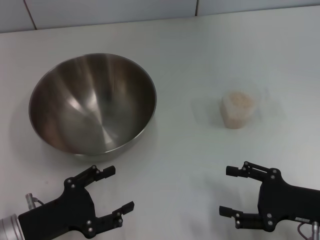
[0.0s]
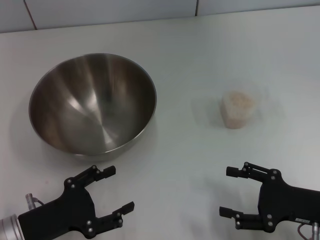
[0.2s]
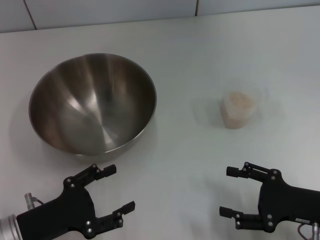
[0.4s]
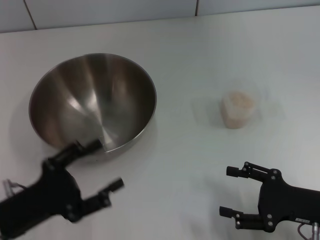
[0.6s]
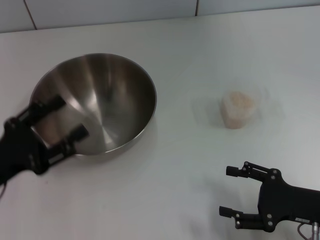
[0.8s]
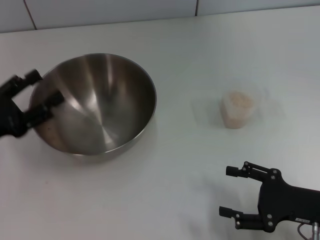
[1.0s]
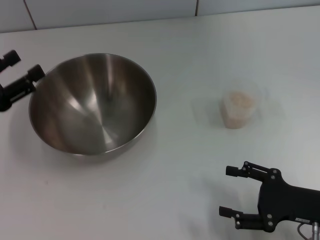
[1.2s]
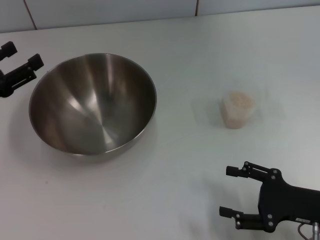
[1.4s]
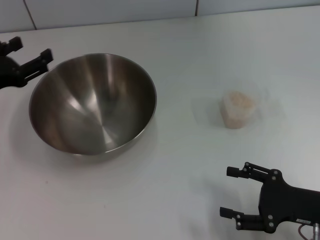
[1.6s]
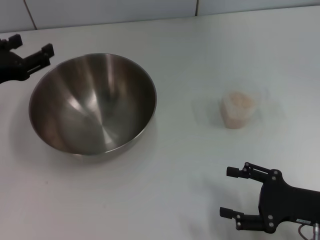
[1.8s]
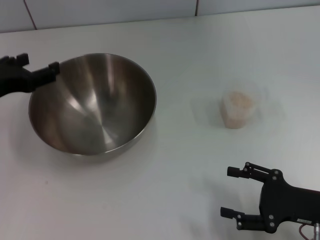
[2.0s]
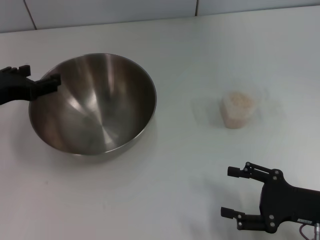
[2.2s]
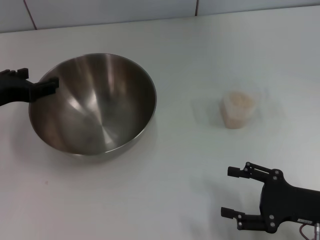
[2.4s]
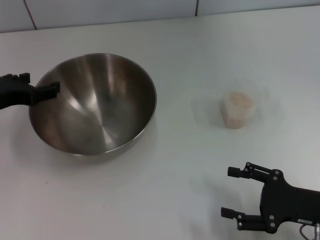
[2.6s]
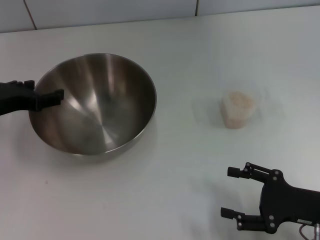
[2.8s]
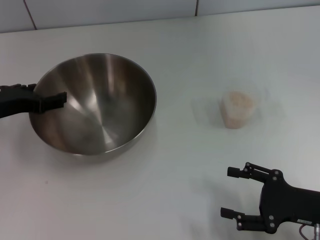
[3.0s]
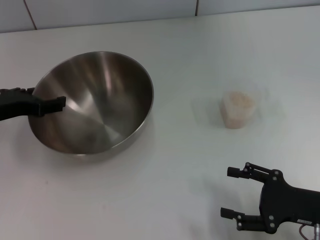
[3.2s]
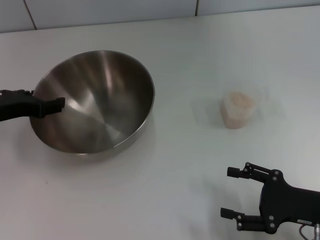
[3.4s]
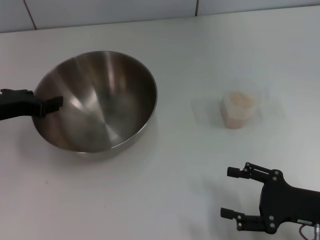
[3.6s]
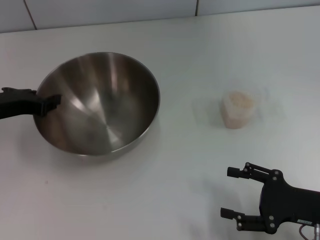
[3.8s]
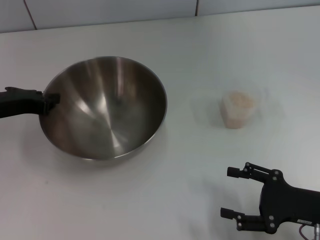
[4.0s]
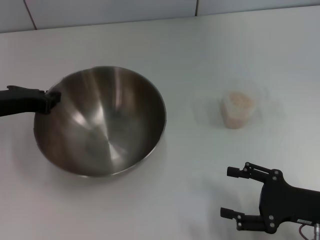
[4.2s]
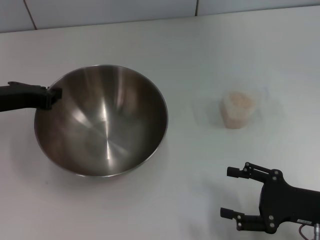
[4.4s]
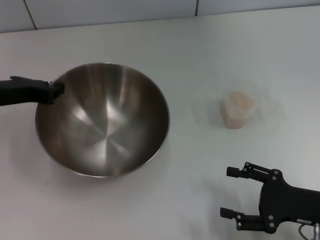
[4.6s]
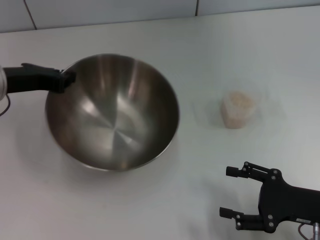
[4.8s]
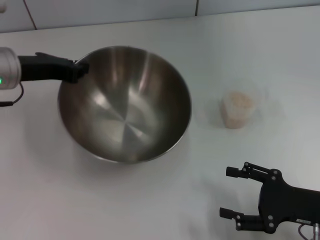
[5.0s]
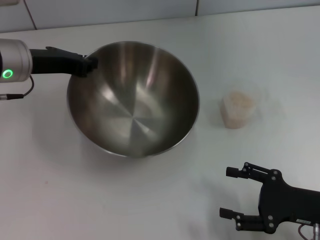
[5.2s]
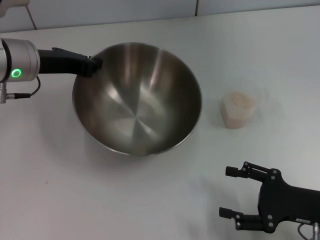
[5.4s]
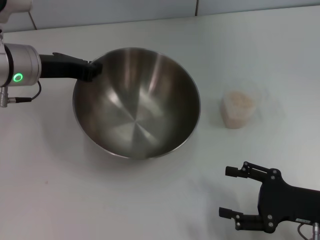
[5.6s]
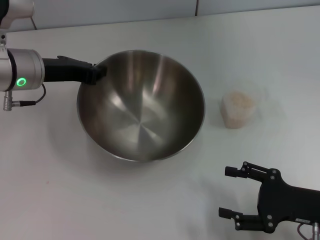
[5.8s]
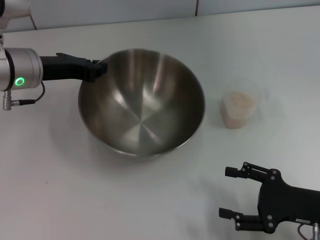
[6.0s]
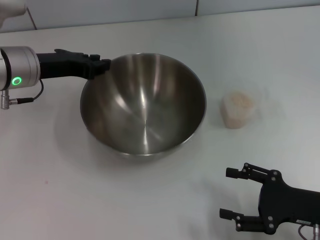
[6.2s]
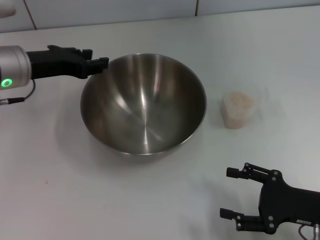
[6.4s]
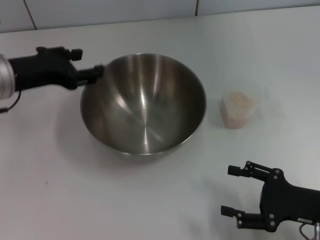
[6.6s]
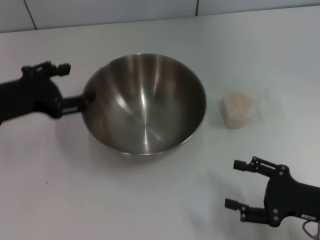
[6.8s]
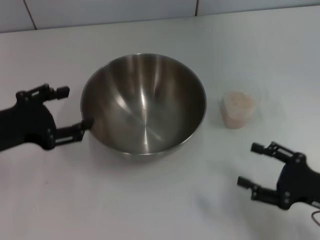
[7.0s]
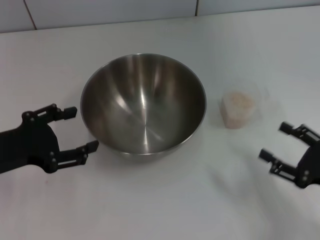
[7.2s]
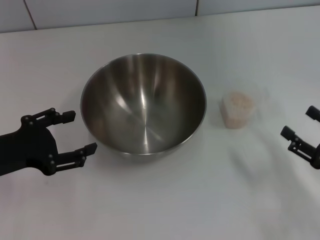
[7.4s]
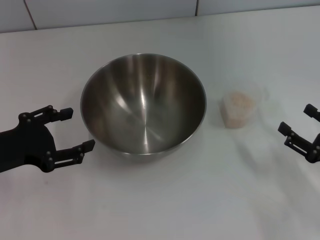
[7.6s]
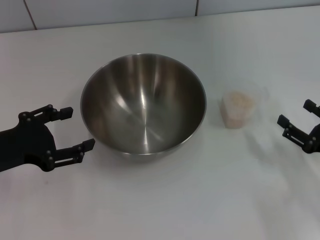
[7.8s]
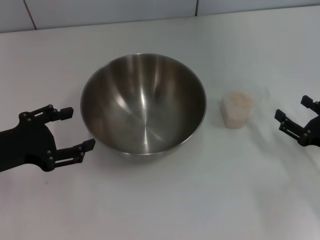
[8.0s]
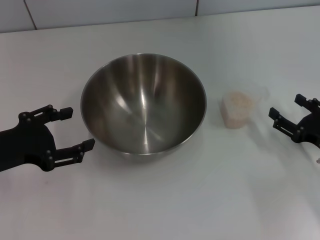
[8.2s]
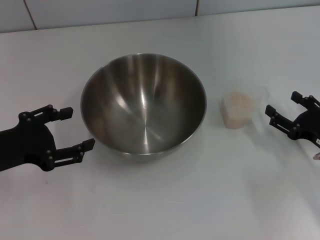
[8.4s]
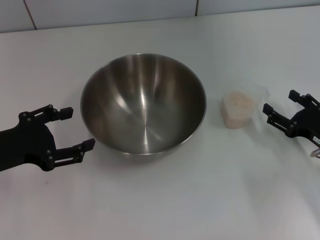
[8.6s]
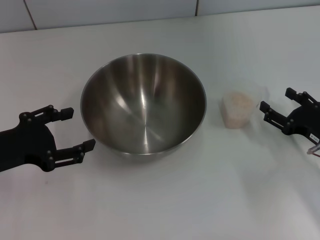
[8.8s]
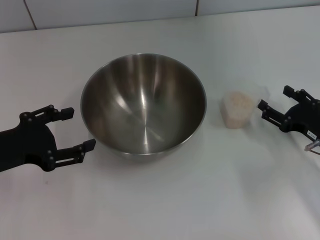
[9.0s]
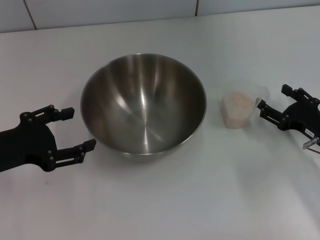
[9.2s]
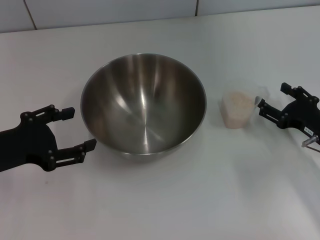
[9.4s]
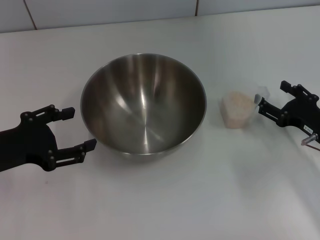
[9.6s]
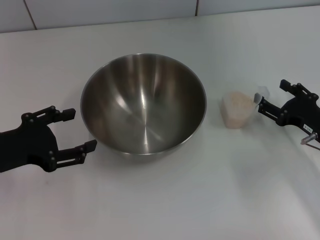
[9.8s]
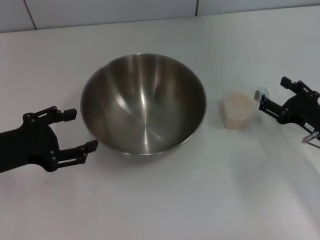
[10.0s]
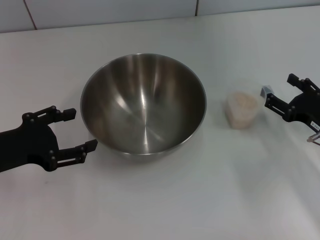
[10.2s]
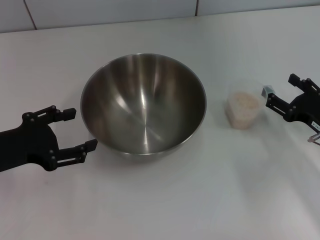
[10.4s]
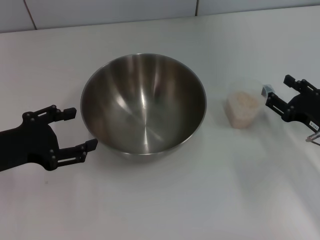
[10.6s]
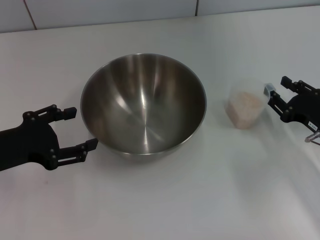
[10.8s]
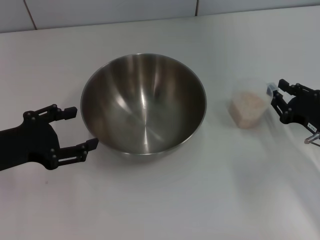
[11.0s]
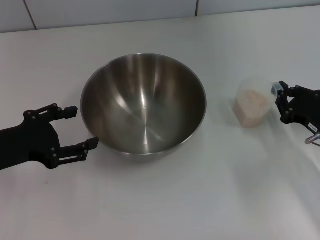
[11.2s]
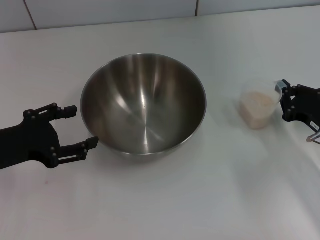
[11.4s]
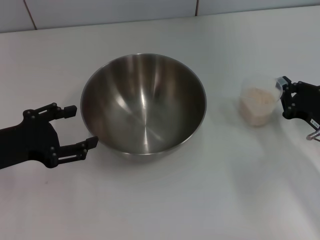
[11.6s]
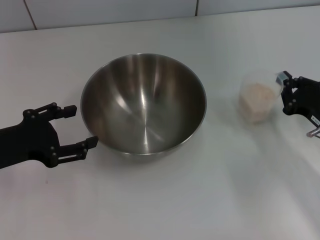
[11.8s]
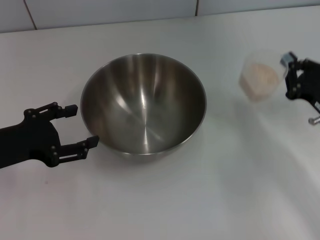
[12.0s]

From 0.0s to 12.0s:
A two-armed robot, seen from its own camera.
Task of the whole recording: Place the bowl in the middle of the table with one hand and pour the rice from the grain cup into it with the other hand.
Step, from 0.0s to 5.0s: Pick up the bowl with the left gripper.
Step, from 5.2s to 6.8s: Place the bowl in the center of view with the left gripper.
From 0.0s to 1.6s: The left gripper travels forward and upward by approximately 15 cm.
From 3.0s to 4.4s: The left gripper closes its fingers.
From 4.4s to 6.0s: The left gripper travels to the right by some 5 cm.
From 6.0s to 7.6s: The right gripper travels to the right by about 5 cm, while the left gripper heads backward and to the left, covering about 15 cm, and opens its fingers.
From 7.6s to 9.0s: The right gripper shifts some 5 cm forward.
From 9.0s to 10.4s: Both grippers stay about where they are.
From 10.4s to 12.0s: The right gripper closes.

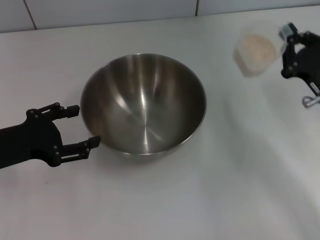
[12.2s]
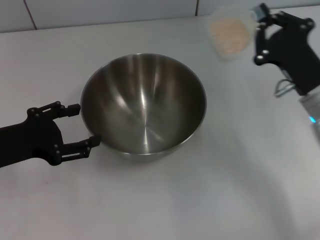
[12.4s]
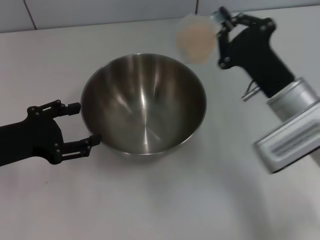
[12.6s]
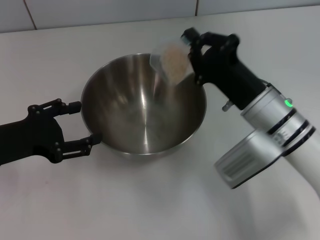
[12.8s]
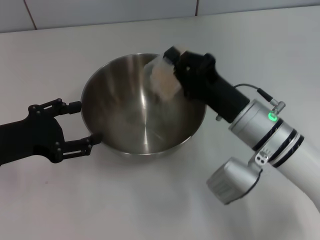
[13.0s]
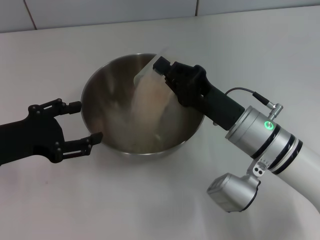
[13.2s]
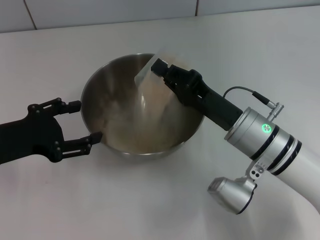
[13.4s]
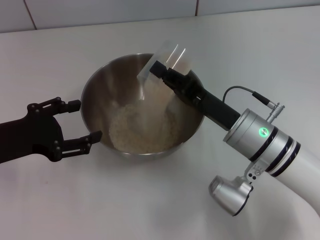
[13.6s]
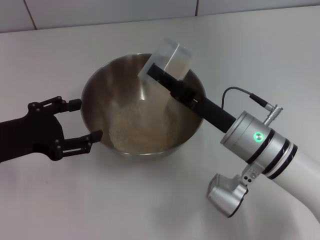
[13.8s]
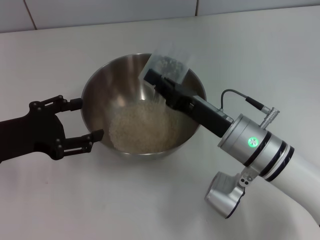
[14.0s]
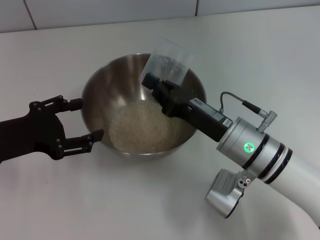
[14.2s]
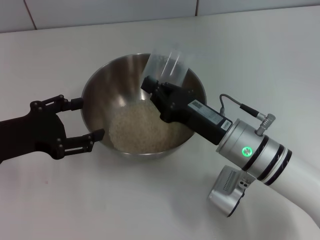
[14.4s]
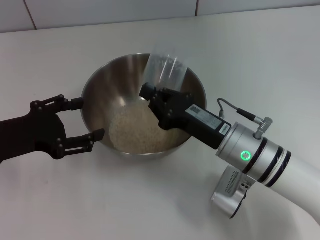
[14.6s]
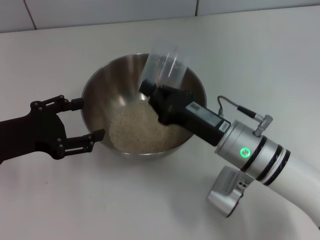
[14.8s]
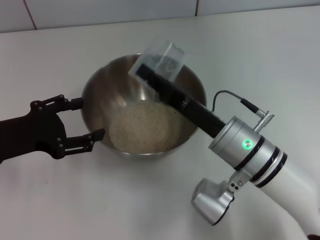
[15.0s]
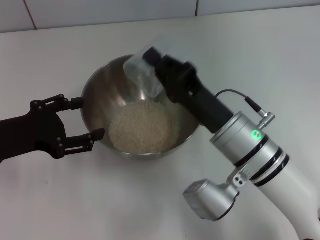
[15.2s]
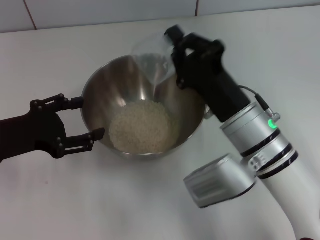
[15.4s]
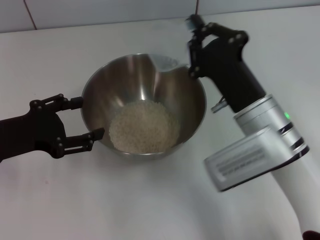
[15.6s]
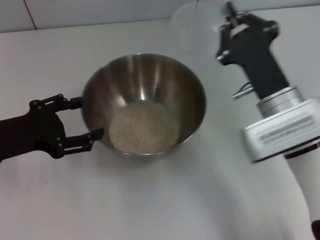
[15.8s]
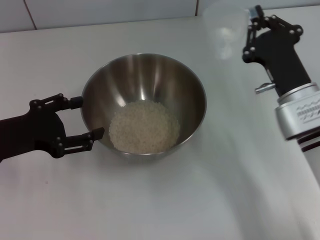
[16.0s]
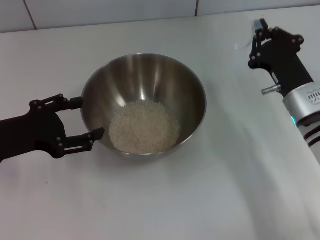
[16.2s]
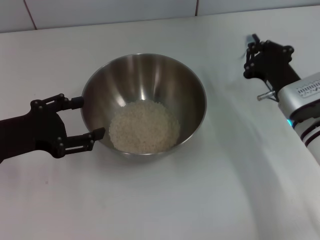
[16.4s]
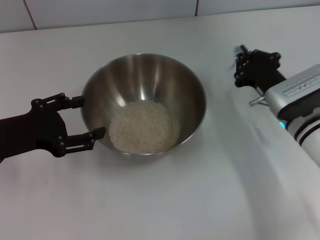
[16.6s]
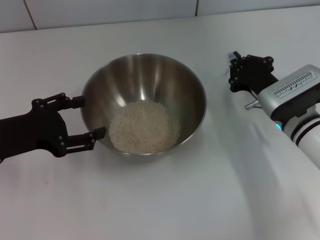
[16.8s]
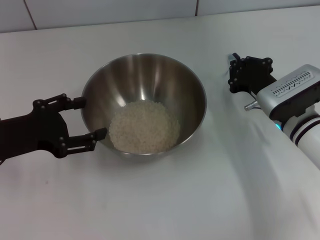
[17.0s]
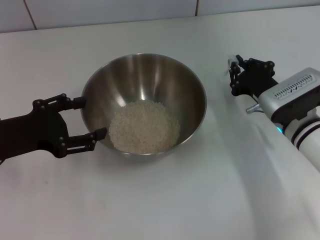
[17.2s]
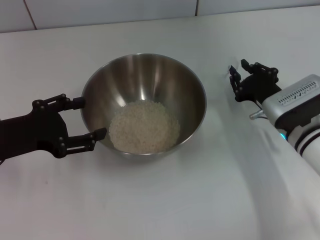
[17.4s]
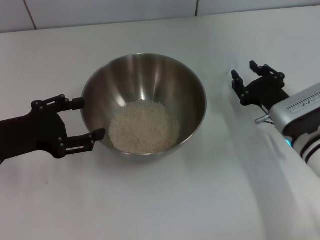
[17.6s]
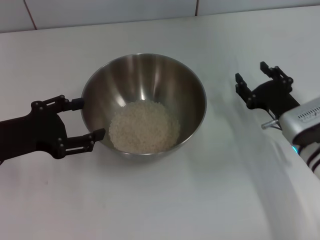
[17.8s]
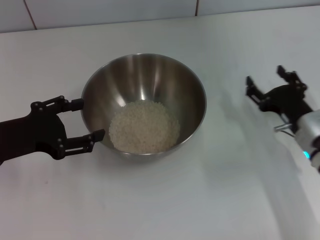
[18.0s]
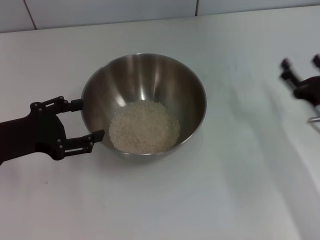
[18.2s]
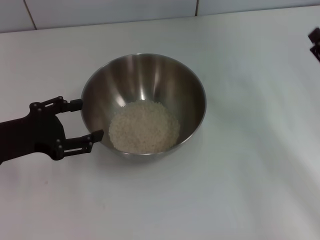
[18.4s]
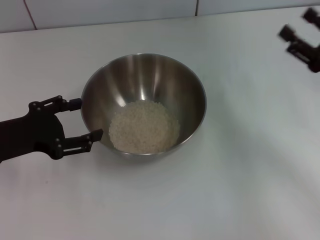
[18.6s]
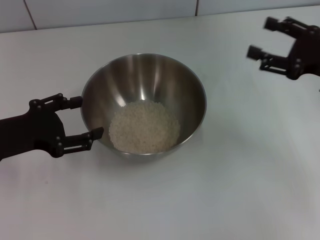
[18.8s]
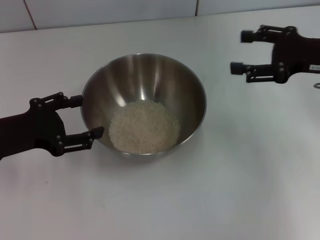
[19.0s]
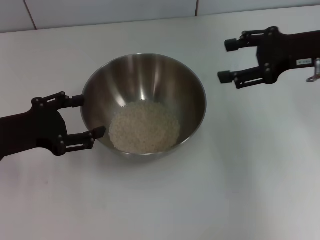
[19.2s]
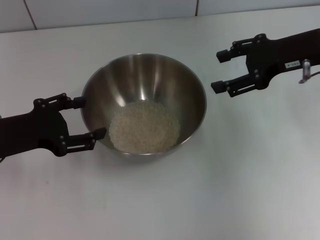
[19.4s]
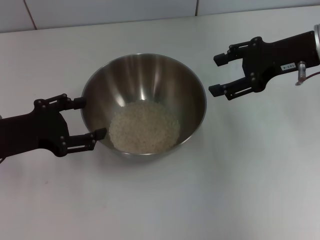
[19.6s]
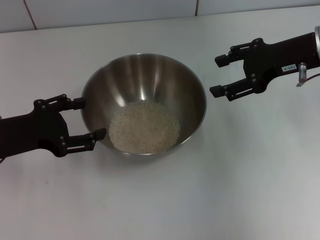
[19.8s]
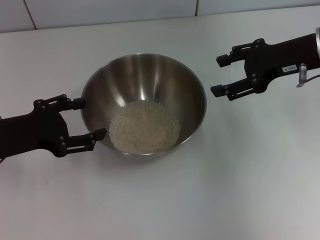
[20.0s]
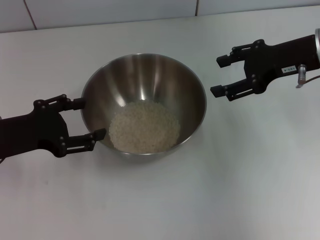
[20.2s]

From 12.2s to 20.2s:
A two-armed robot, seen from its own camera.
Task of the whole recording: Place the bowl in the middle of the table with one hand and pour the rice from the grain cup into it with the other hand.
Step, from 12.4s to 15.8s: Pour the rice from the cup into the bowl with the right gripper.
Step, from 16.0s to 17.8s: Place the cup on the table with the right gripper.
From 12.2s to 13.8s: The right gripper travels to the left by roughly 15 cm.
From 15.4s to 17.0s: The right gripper heads to the right, forward and downward, covering about 15 cm.
From 17.0s to 18.6s: The right gripper shifts about 15 cm to the right and upward, and opens its fingers.
From 18.6s to 20.2s: The right gripper shifts roughly 15 cm upward, forward and to the left.

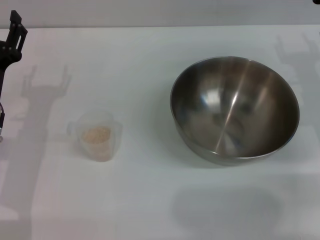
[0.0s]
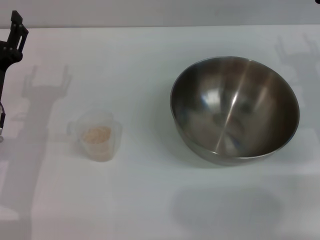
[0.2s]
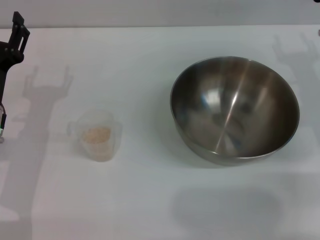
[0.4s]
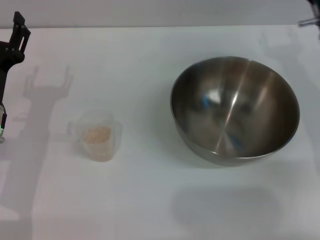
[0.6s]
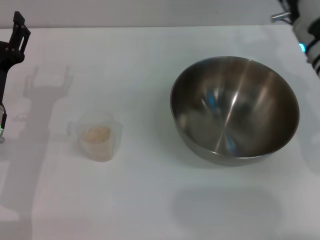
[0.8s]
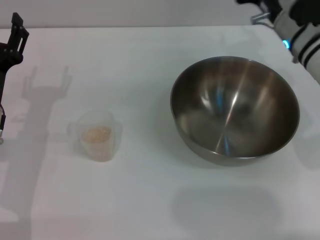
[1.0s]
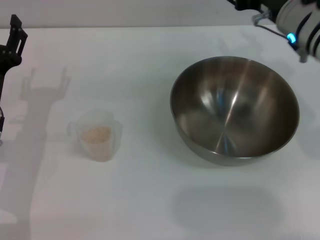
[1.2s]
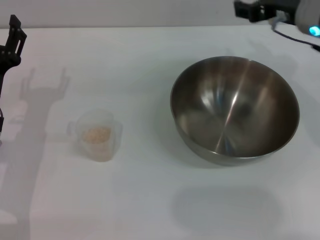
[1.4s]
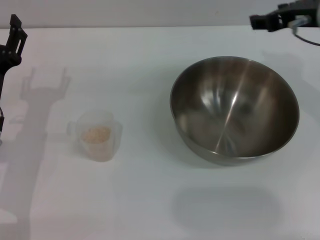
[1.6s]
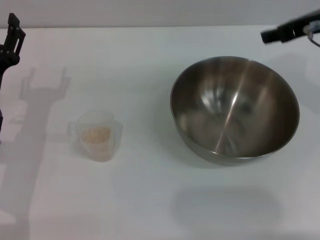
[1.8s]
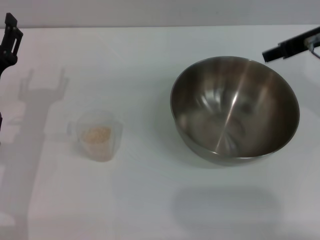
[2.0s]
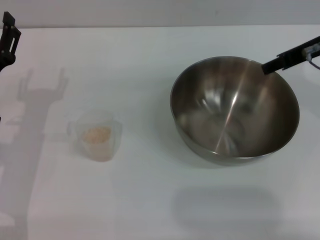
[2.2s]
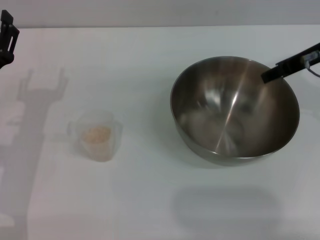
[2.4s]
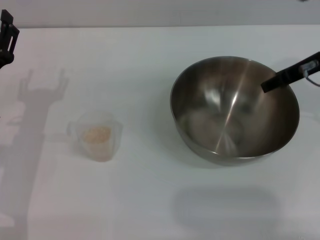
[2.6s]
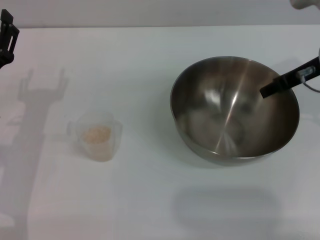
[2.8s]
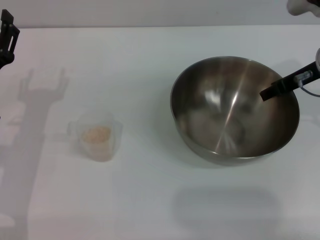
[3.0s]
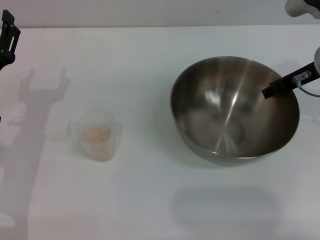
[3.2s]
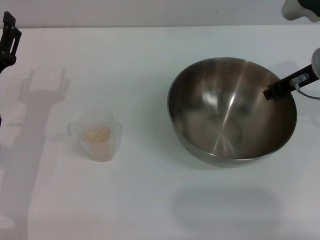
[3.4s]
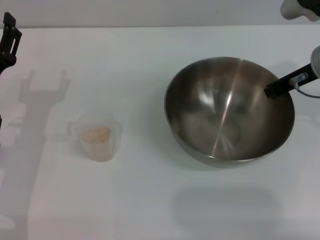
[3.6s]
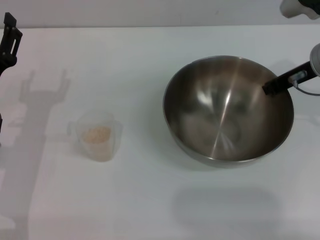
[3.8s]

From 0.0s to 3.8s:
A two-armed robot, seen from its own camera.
Task of the whole recording: Place the bowl in the middle of the table with one hand and pour the rice from the grain cup into it with the other hand.
From 0.0s to 1.2s: The right gripper shifts roughly 10 cm to the left and upward.
From 2.6s to 3.8s: The right gripper closes its fingers.
